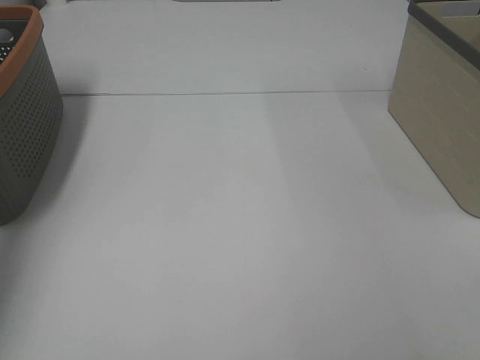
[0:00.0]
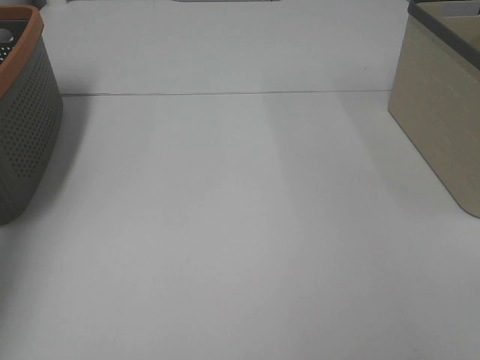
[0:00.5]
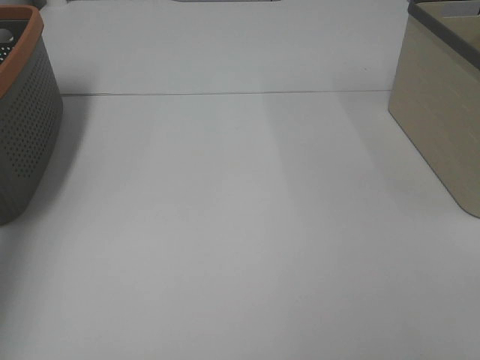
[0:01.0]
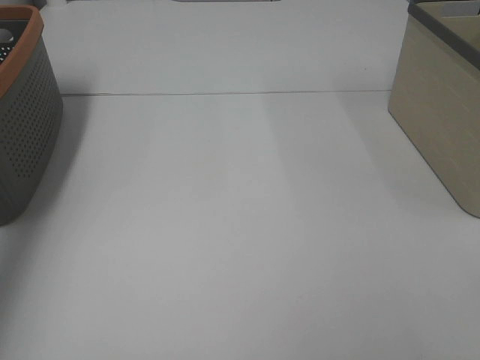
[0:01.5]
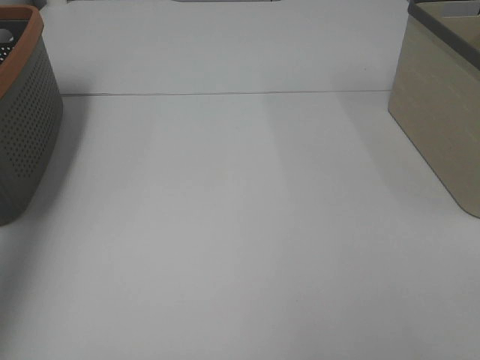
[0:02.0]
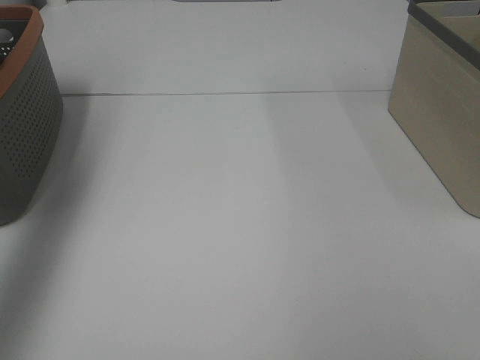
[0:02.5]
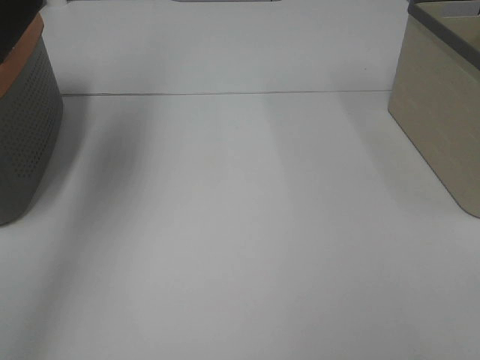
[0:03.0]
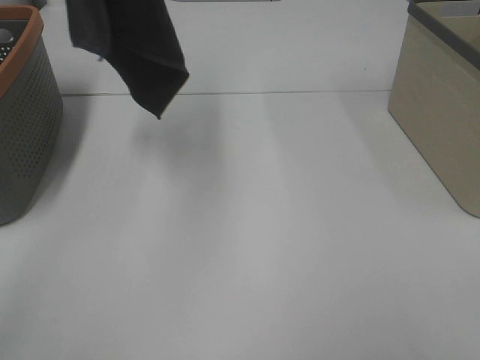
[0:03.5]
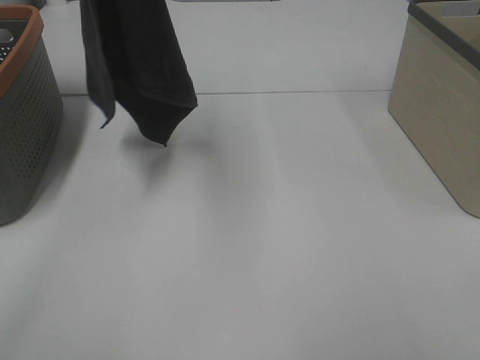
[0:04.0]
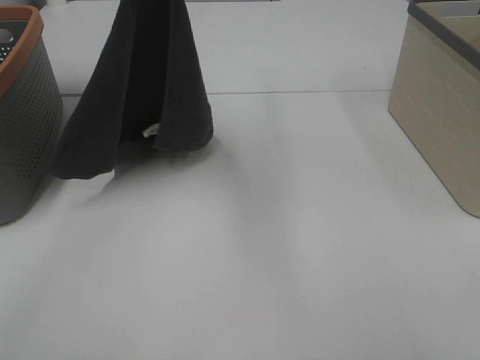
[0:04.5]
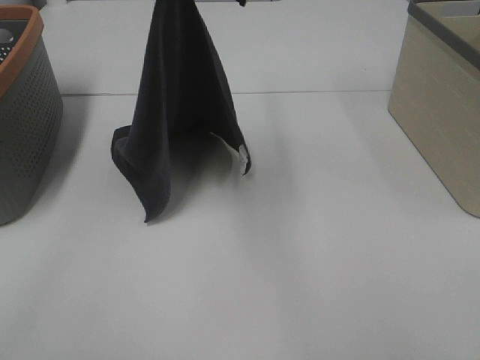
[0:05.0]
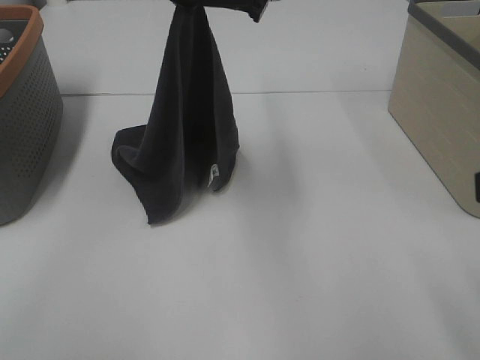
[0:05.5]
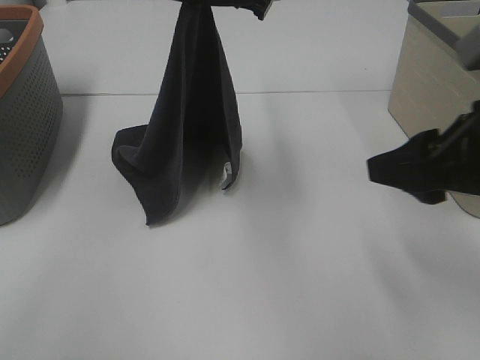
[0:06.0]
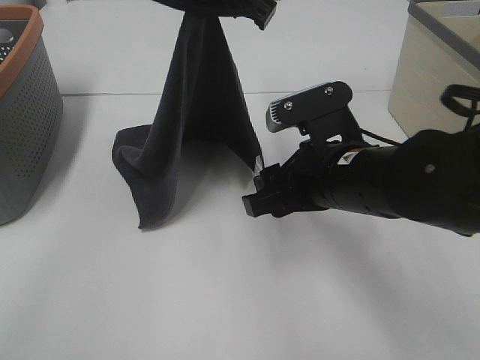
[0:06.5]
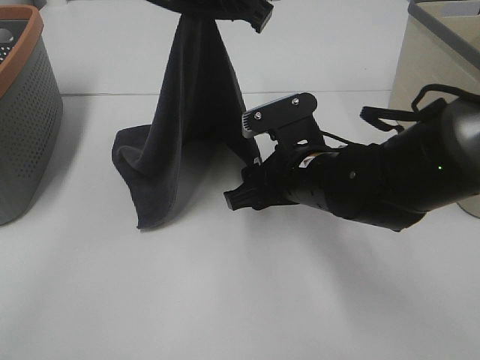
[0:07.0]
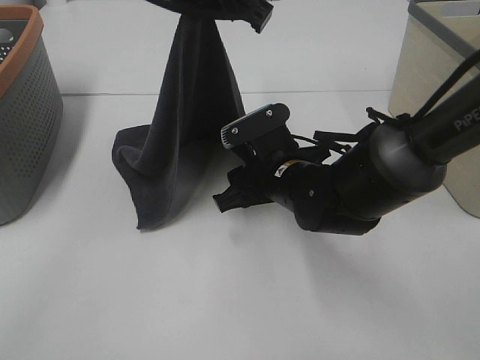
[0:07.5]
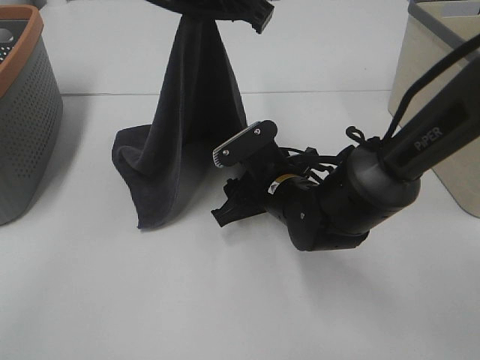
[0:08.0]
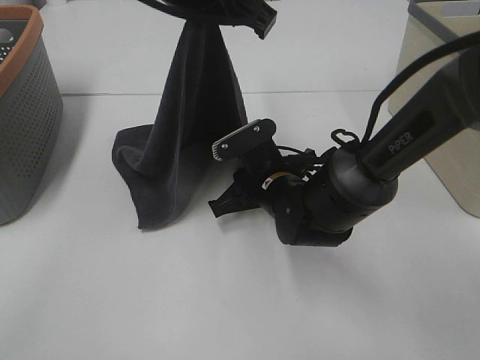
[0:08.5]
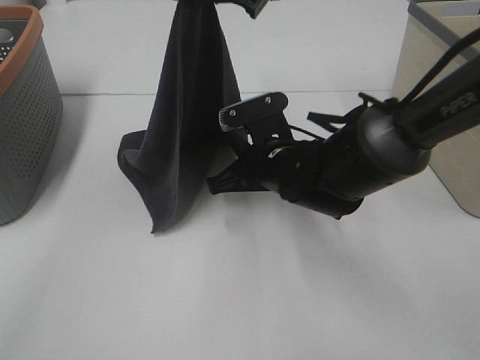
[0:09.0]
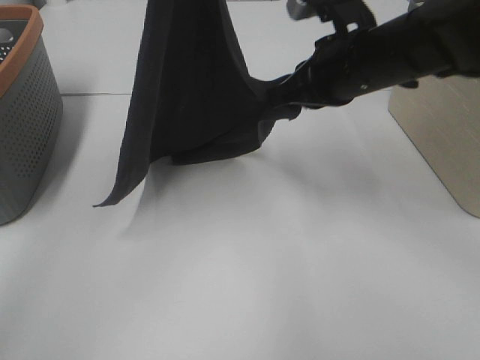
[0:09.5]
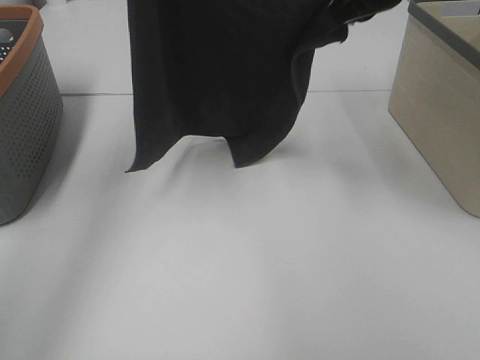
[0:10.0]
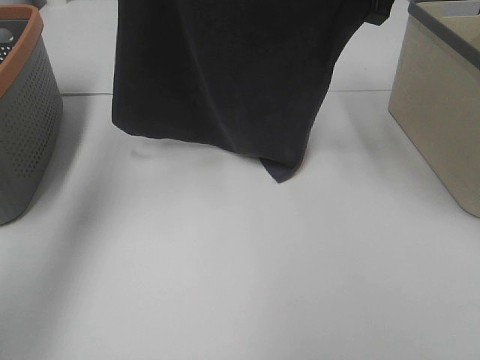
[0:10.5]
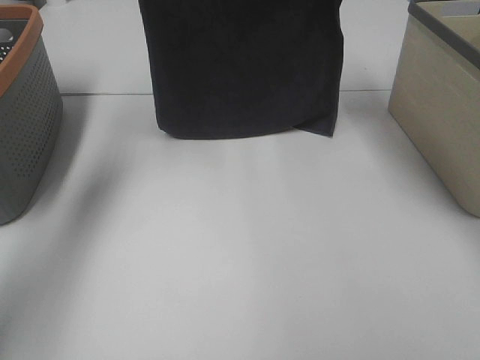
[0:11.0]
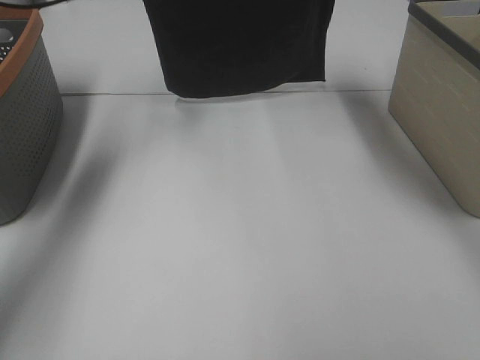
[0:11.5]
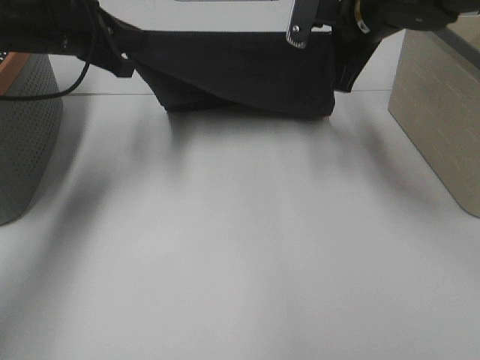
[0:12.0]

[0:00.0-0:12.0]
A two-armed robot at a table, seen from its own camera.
Task of the whole recording: Remove the towel and place it.
Step, 0:03.5 to 0:07.0: Right hand: grab a corner of the grey towel and straighten it.
Step, 0:07.5 to 0:09.5: Left hand: spread the grey towel flat on the table.
Step, 0:07.5 to 0:09.5: Right hand: spread the grey towel flat on the table.
0:02.0 to 0:04.0: The left gripper is displaced to the right by roughly 30 cm.
0:04.0 to 0:06.0: The left gripper shifts approximately 15 cm downward and to the right. The right gripper is displaced forward by some 20 cm.
0:06.0 to 0:08.0: The right gripper is displaced downward, to the left and forward by about 25 cm.
0:08.0 to 0:10.0: The left gripper shifts approximately 15 cm to the left and upward. Meanwhile the right gripper shifts about 25 cm upward, and closes up.
0:10.0 to 0:12.0: The right gripper goes about 10 cm downward, and reaches about 15 cm forward, then returns, while the left gripper shifts roughly 20 cm downward.

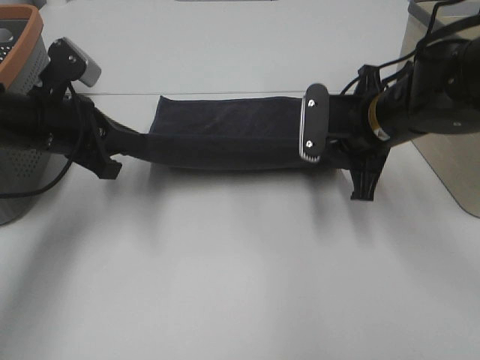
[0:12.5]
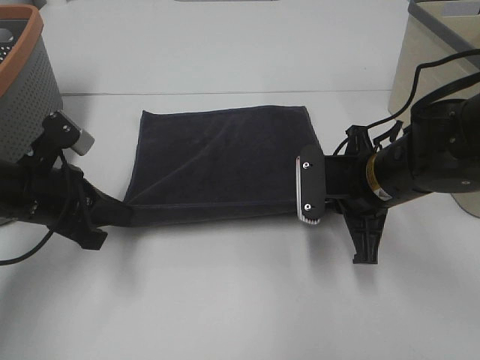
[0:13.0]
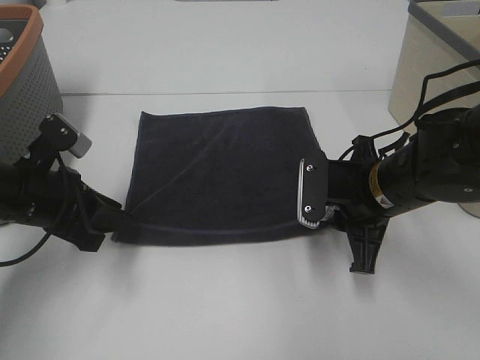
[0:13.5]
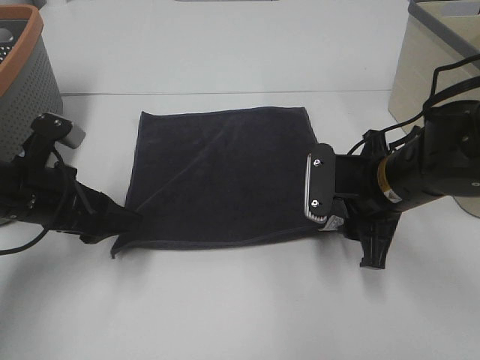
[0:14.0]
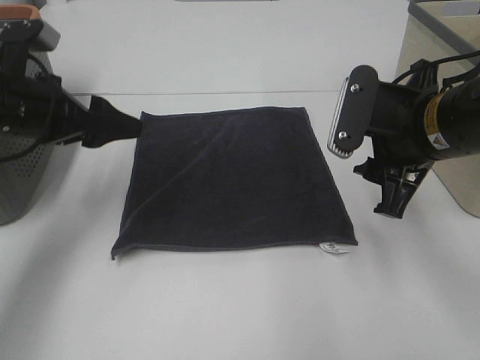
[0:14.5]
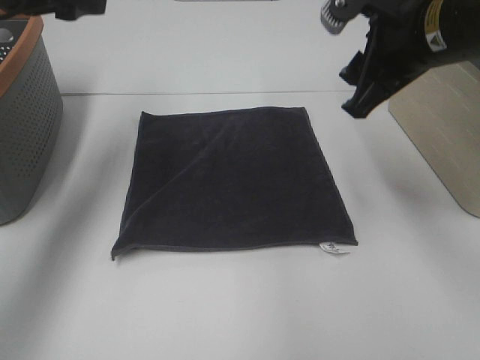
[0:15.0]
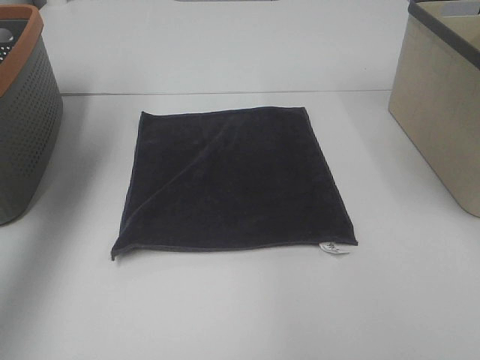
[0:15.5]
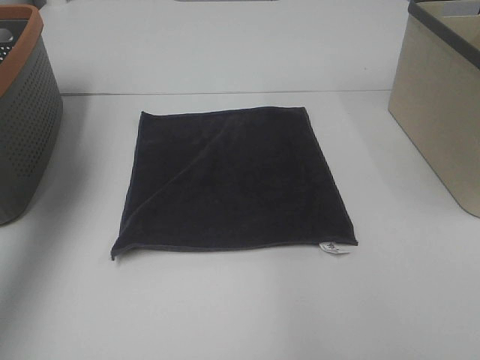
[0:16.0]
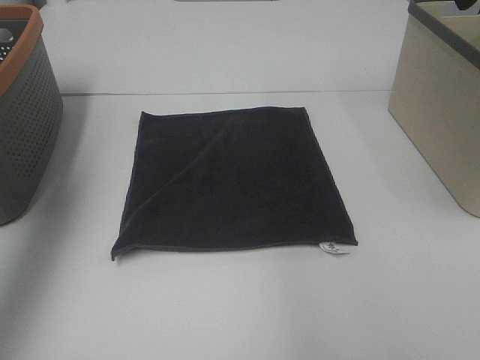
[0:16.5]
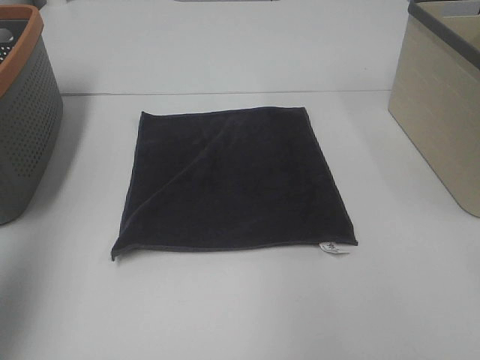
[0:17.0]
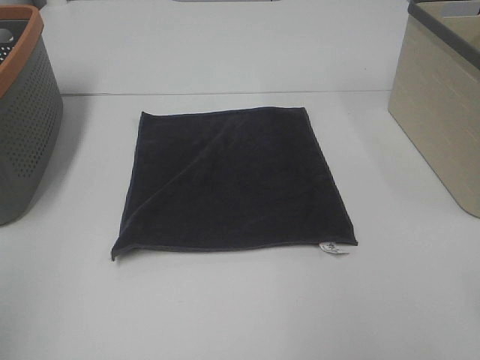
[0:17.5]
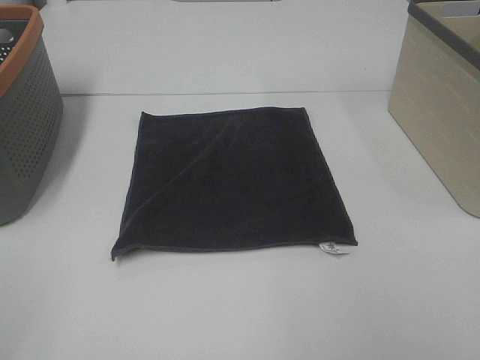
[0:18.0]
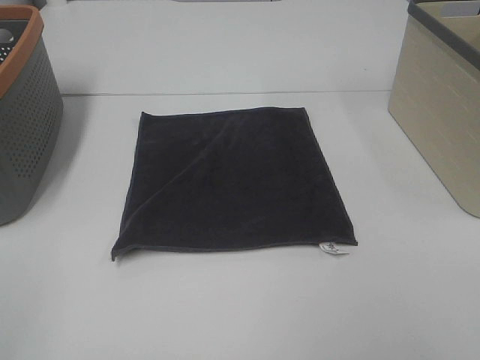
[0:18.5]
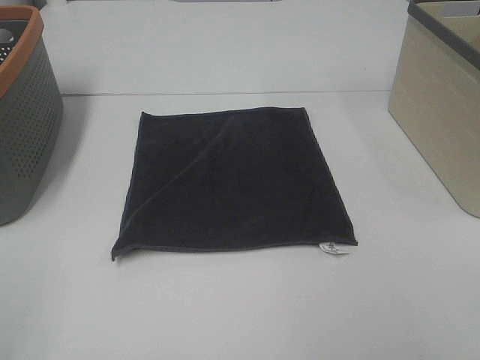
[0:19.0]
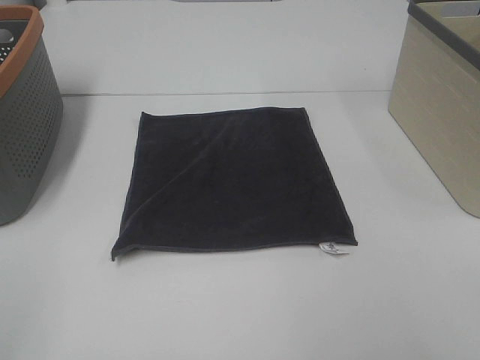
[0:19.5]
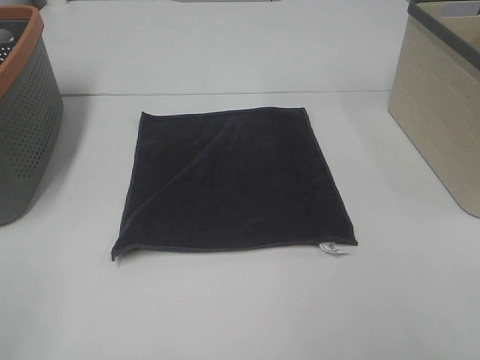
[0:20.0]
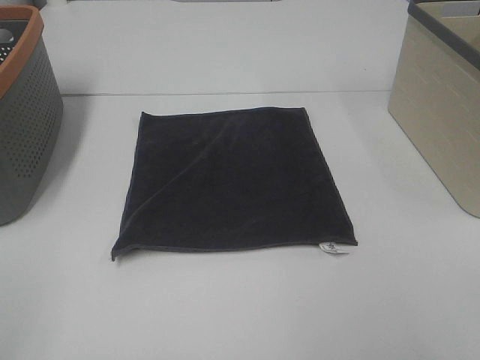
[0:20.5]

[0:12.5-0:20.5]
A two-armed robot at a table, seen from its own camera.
Task of the whole recording: Remove the towel and place it.
0:12.5 to 0:14.5: The left gripper opens up. The right gripper is displaced backward by approximately 5 cm, and opens up.
0:14.5 to 0:16.5: The right gripper goes approximately 20 cm upward, while the left gripper shifts approximately 25 cm upward and to the left.
0:16.5 to 0:18.5: The left gripper moves backward and downward, approximately 30 cm.

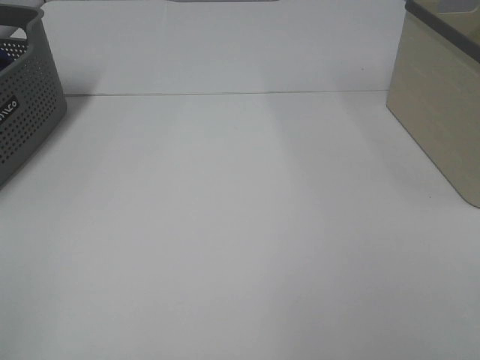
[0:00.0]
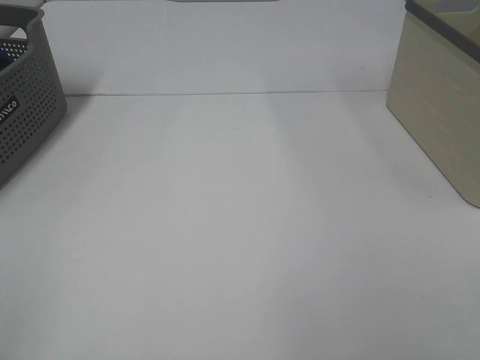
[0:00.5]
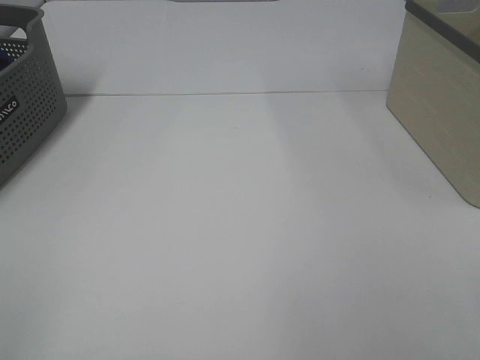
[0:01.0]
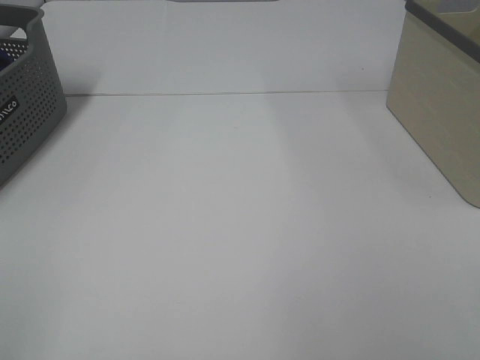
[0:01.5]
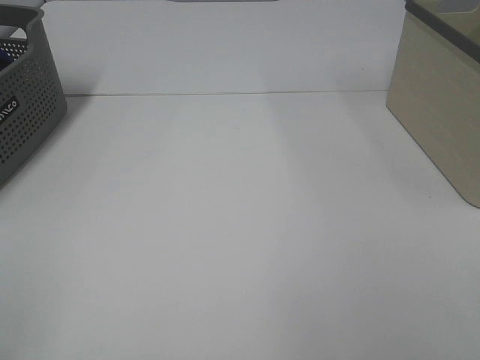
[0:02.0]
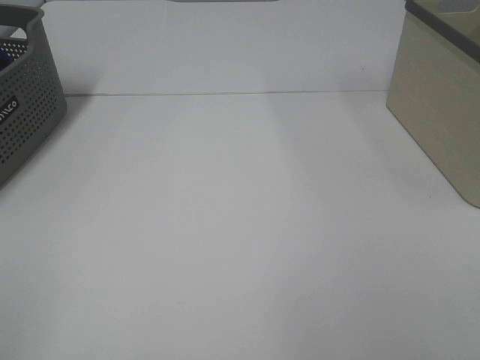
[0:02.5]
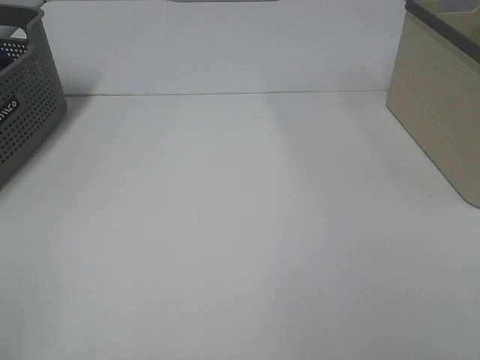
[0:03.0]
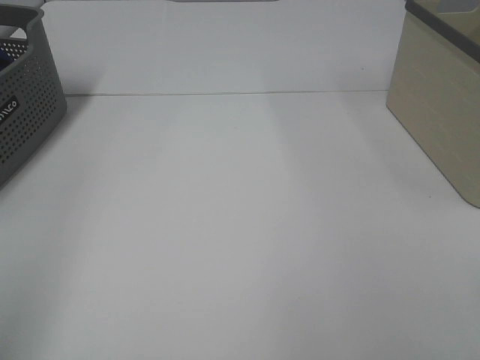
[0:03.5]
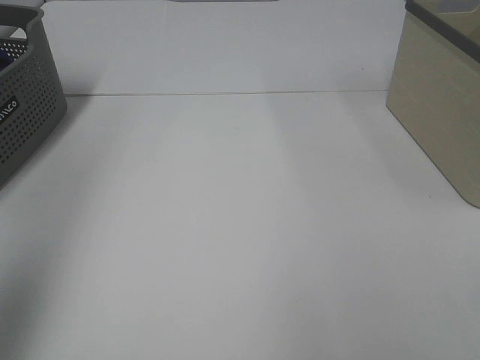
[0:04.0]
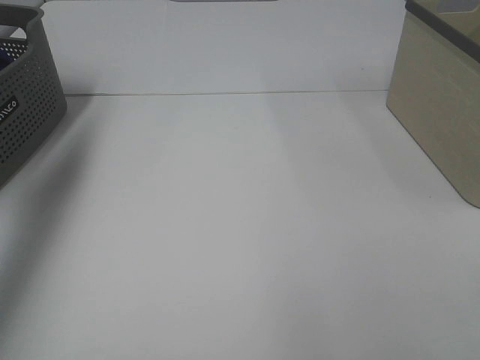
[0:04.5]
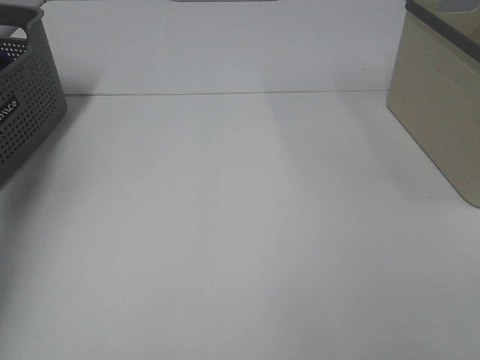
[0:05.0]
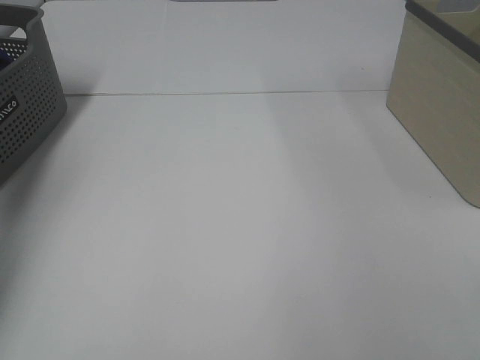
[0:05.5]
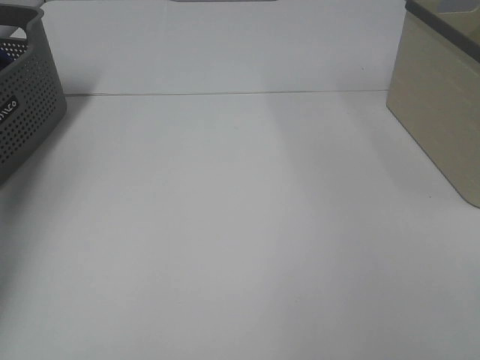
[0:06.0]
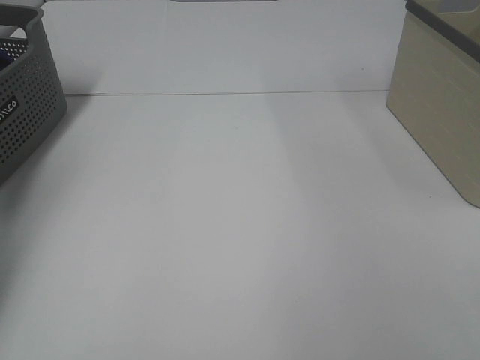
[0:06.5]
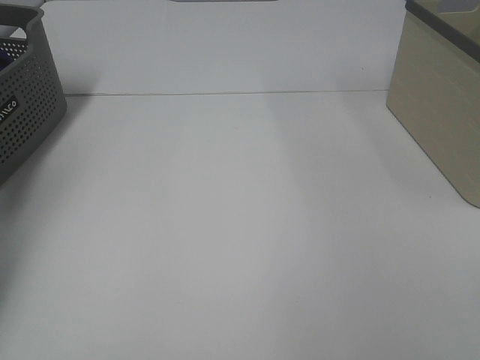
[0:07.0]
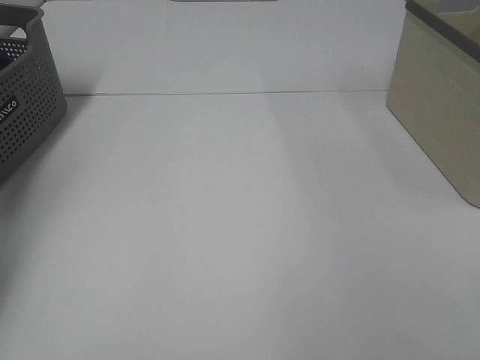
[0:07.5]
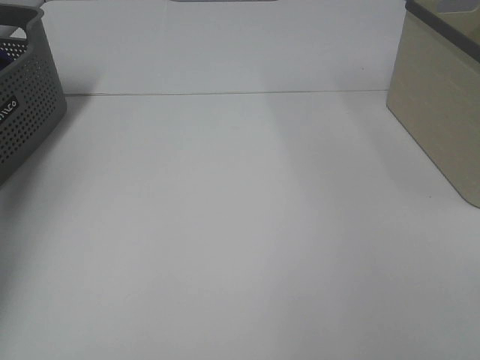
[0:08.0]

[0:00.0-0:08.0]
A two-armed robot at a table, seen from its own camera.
Task of the whole recording: Remove the towel and place it.
0:00.0 to 0:02.0: The two grippers keep their place.
0:02.0 to 0:04.0: The left gripper is displaced forward and upward by some 25 cm.
0:04.0 to 0:06.0: The left gripper is displaced forward and downward by about 40 cm.
